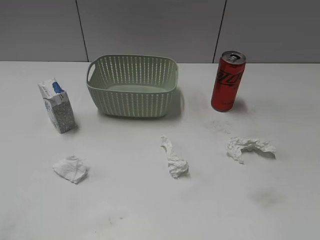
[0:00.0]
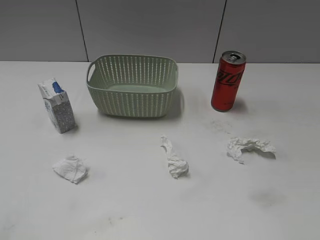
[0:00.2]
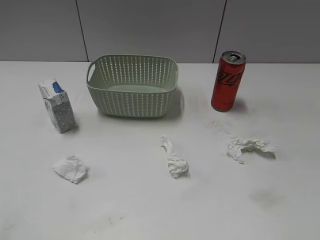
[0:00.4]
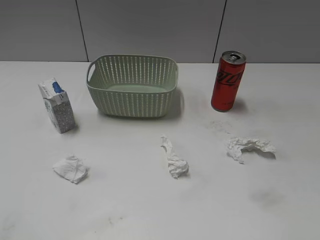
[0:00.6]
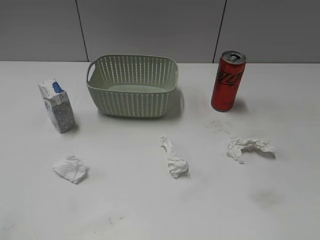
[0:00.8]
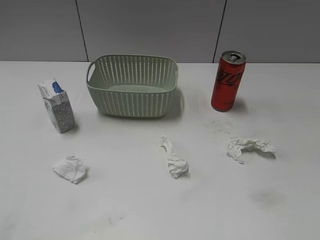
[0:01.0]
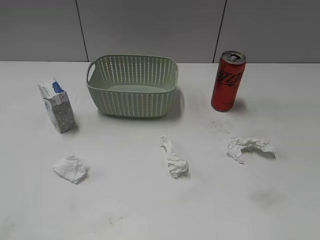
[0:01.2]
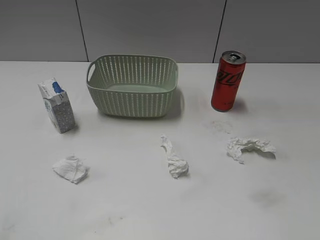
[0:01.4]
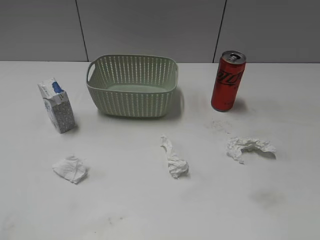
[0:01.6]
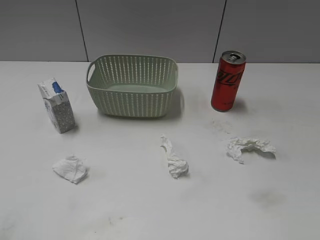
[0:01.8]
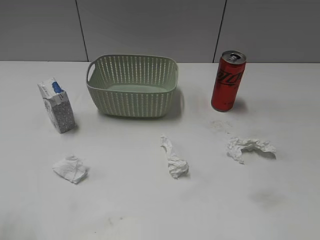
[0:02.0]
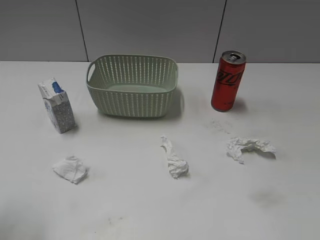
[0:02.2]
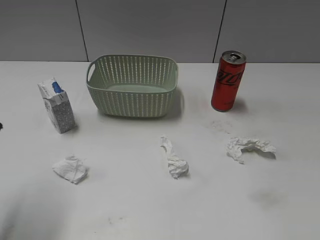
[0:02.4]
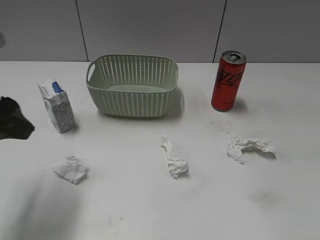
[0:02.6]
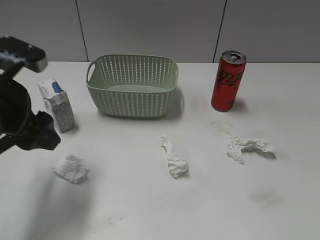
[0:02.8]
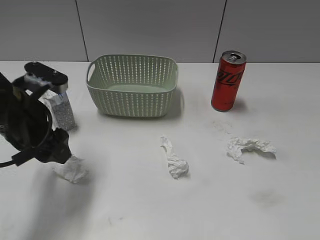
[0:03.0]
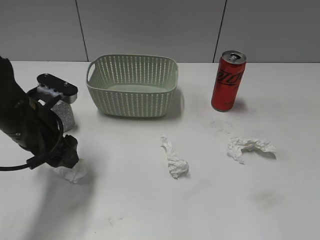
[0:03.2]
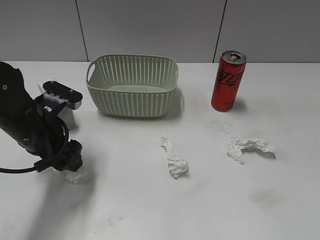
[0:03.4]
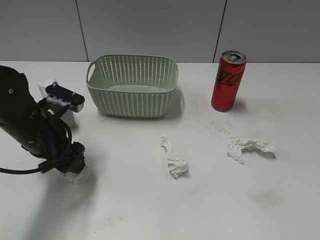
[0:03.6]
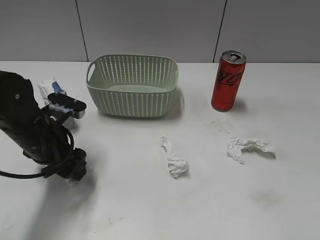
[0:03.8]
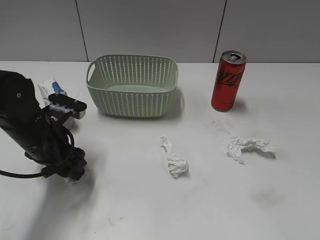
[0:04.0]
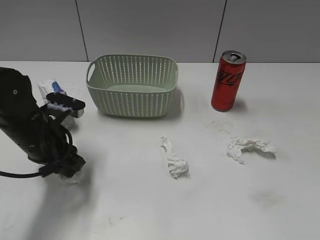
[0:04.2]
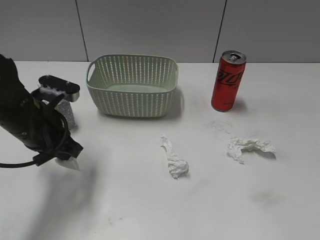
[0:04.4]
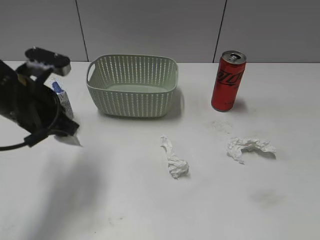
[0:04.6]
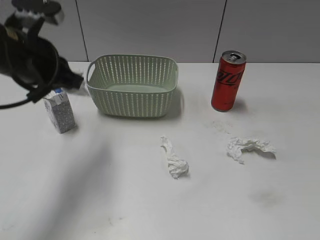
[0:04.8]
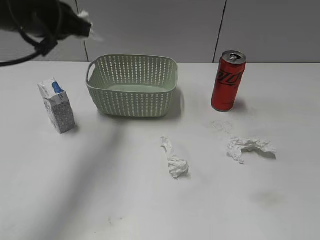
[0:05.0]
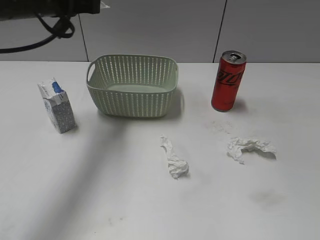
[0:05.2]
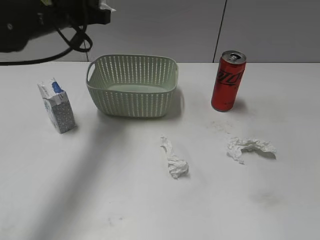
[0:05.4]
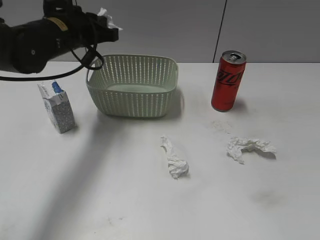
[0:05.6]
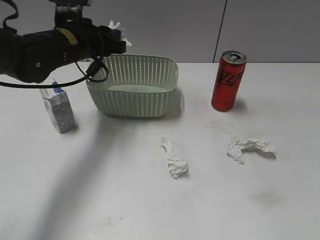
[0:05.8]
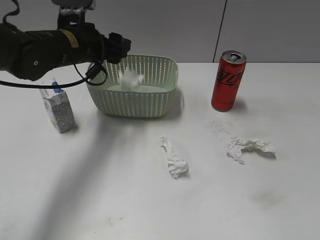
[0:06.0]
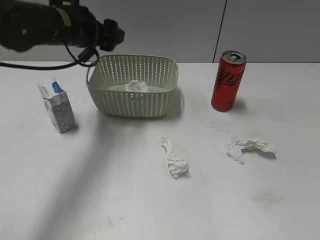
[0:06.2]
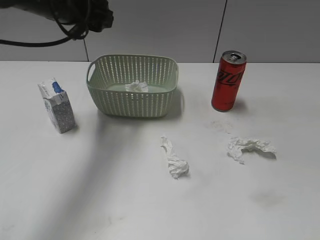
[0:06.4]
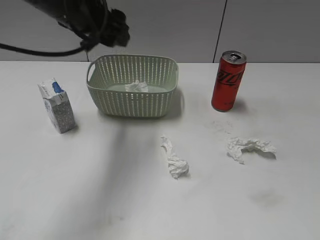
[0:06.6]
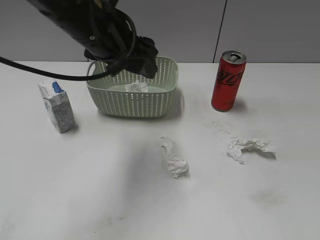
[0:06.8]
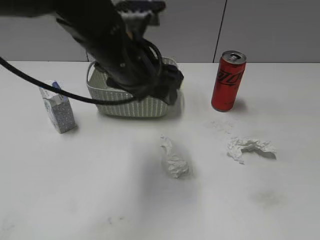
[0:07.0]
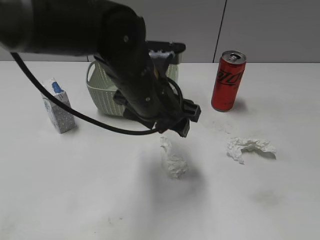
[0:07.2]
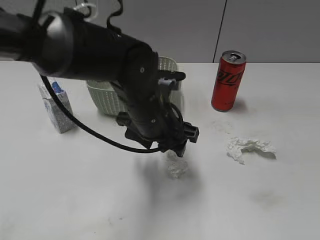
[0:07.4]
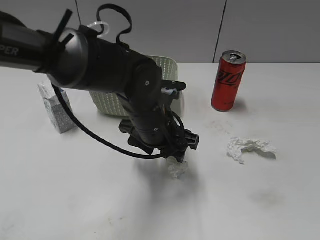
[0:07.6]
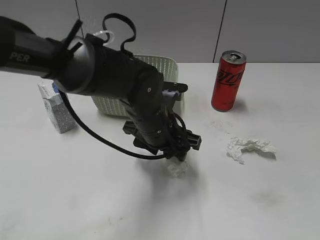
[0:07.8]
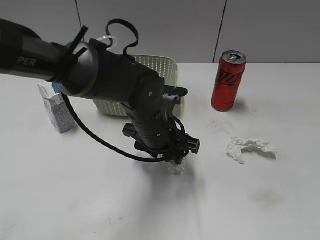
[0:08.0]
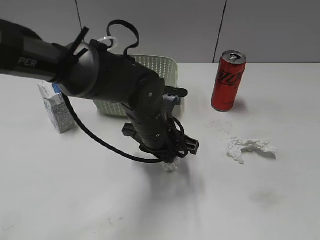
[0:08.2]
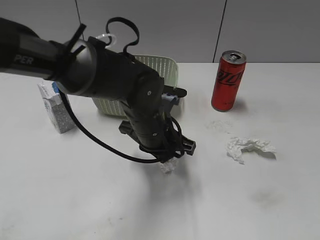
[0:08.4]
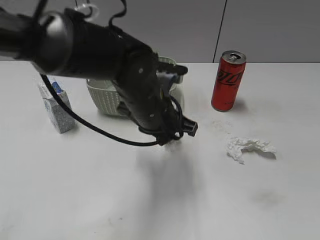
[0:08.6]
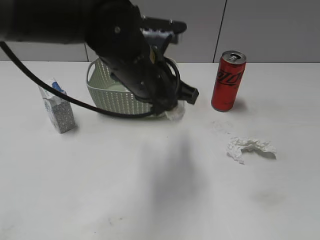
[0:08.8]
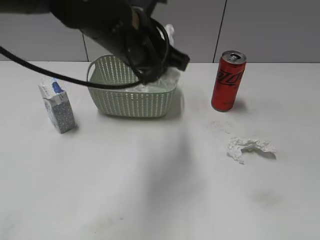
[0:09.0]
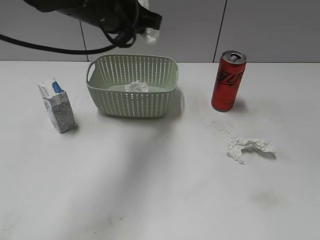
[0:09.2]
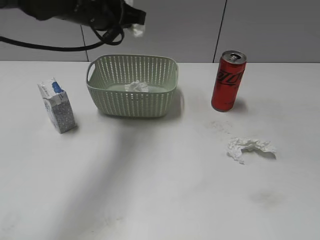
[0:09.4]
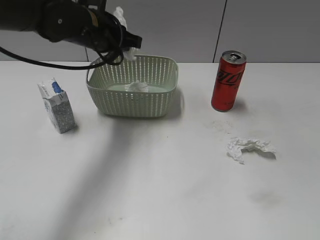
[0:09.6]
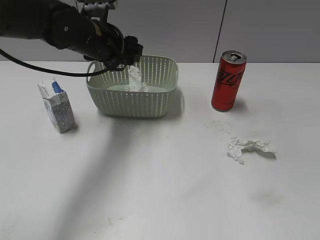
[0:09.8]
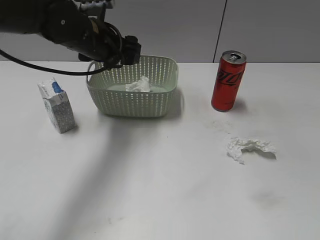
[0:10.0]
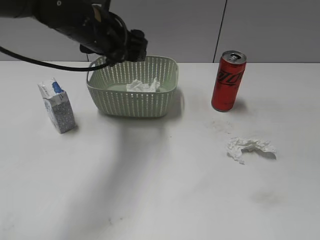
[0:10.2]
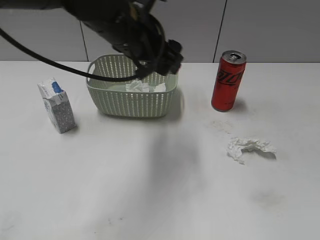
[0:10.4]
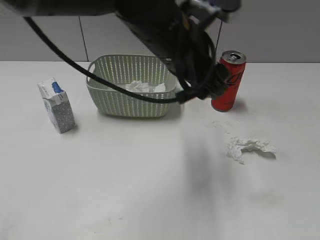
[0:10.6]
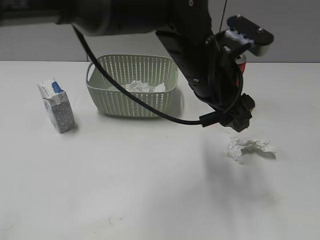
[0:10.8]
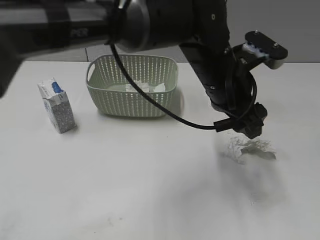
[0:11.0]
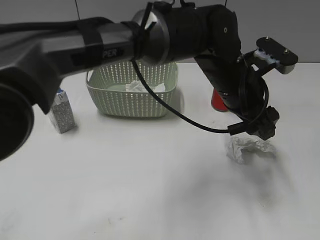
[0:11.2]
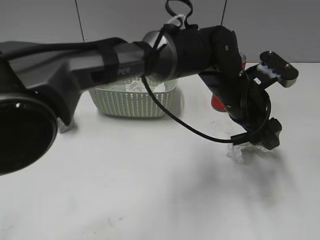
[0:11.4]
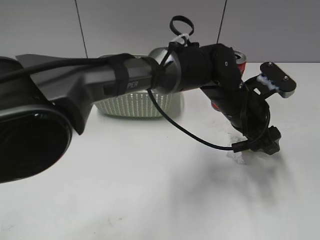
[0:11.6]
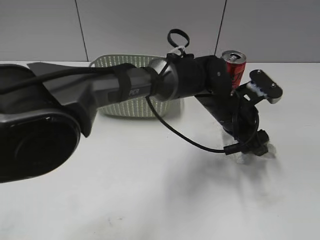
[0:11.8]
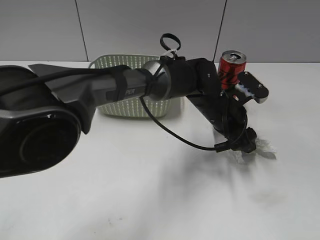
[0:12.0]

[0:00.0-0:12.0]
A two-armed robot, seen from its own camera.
Step, 0:02.4 to 0:04.4: Grasp the waste paper with left gripper.
Step, 0:04.6 to 0:06.2: Place the waste paper in the basket with left gripper.
Step, 0:06.4 to 0:08.4: Grasp the waste paper with left gripper.
Step, 0:08.6 to 0:10.0: Place the waste paper in the basket with left gripper.
0:01.6 to 0:03.0: The left gripper moves forward, to the right and downward, approximately 25 cm.
0:03.0 to 0:04.4: The left gripper closes its fingers.
0:04.4 to 0:06.0: The left gripper travels forward and upward by approximately 15 cm, and opens its fingers.
0:06.0 to 0:07.6: The left gripper moves to the right, backward and downward, approximately 20 cm.
0:07.6 to 0:09.0: The left gripper travels upward by roughly 15 cm, and closes.
0:09.0 to 0:10.4: The left gripper goes forward and returns, some 10 cm each way, and opens its fingers.
0:10.4 to 0:12.0: The left gripper travels to the right and downward by roughly 25 cm.

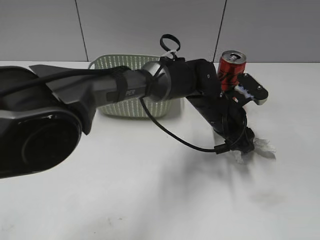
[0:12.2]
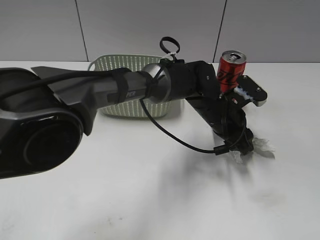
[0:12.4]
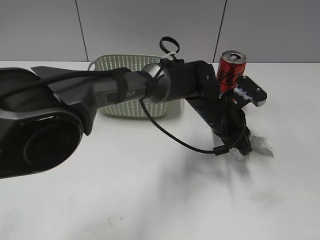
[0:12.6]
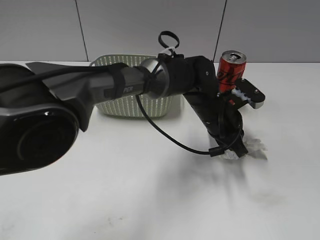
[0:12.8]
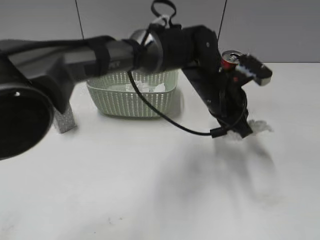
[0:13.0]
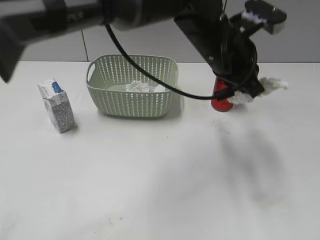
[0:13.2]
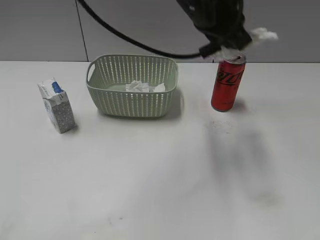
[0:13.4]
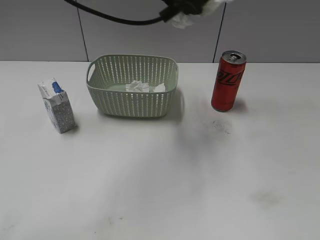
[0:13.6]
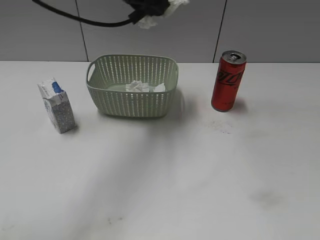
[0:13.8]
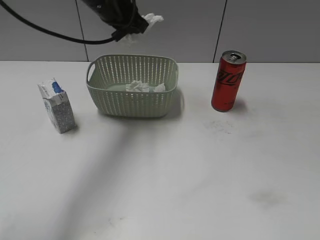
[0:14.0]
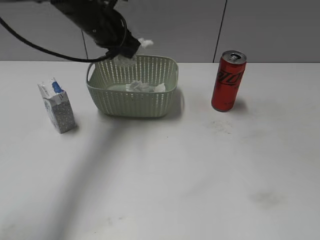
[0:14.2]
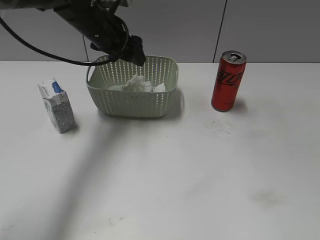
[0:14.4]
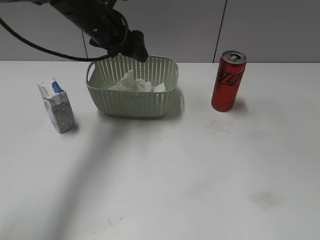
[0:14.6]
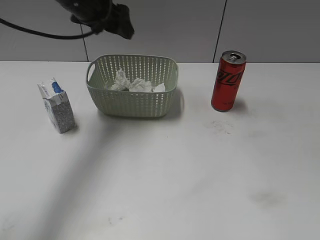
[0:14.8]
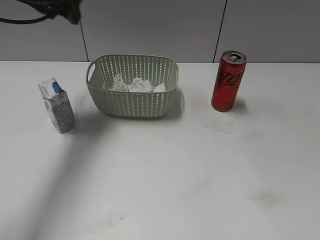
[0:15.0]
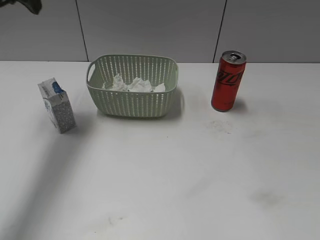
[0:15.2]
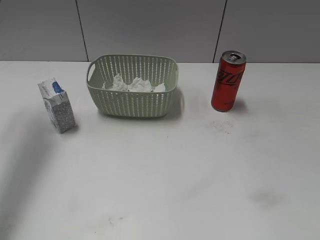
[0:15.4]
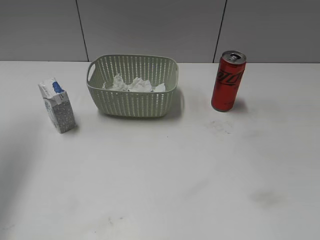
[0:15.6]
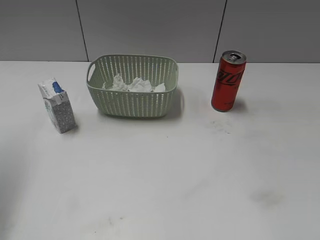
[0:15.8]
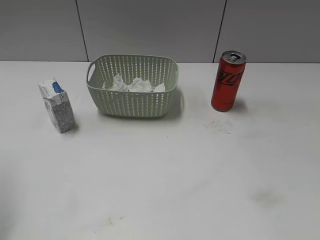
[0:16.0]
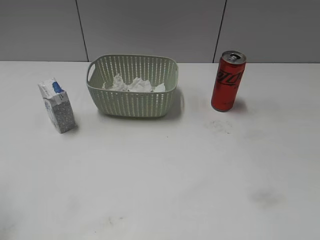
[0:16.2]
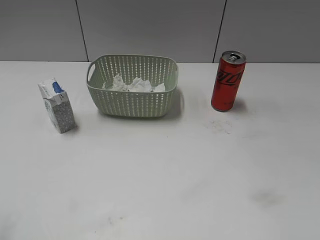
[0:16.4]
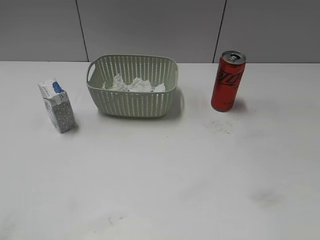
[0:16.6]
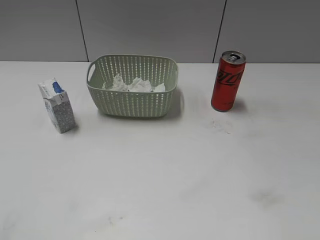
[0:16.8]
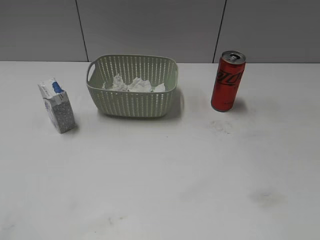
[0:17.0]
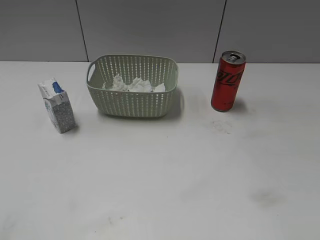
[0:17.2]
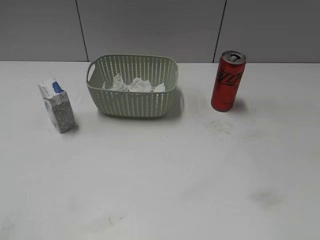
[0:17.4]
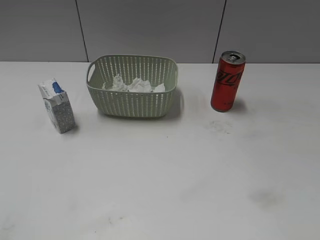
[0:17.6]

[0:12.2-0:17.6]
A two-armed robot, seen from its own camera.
Step, 0:13.0 to 0:14.4: Place the waste paper in the basket with left gripper.
0:12.2 to 0:13.6: The left gripper travels upward and to the left by some 25 cm, and closes its fingers.
0:13.6 to 0:15.0: The left gripper travels to the left by some 20 cm, and opens up.
0:15.0 to 0:16.2: The left gripper is displaced backward and to the left by roughly 30 cm.

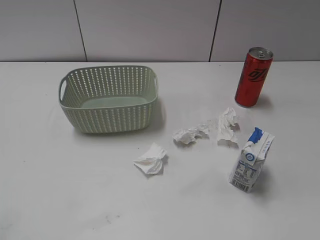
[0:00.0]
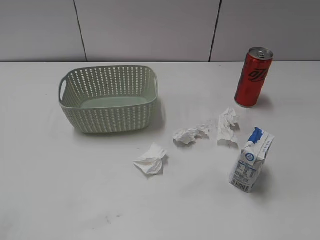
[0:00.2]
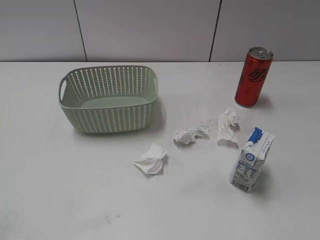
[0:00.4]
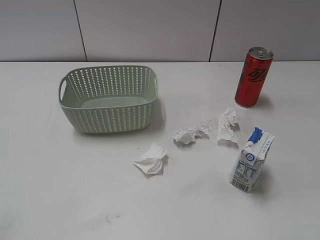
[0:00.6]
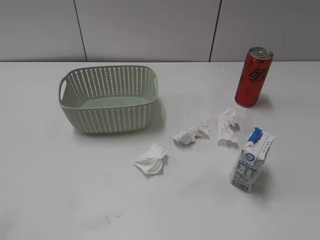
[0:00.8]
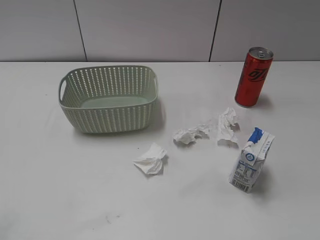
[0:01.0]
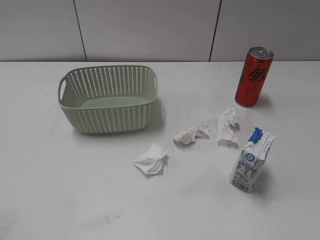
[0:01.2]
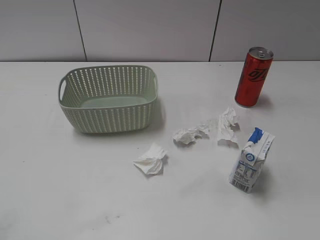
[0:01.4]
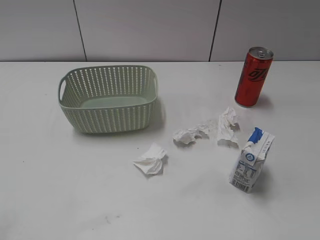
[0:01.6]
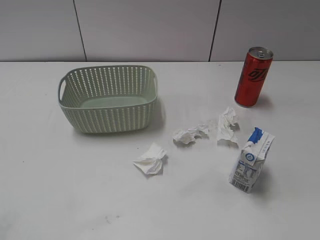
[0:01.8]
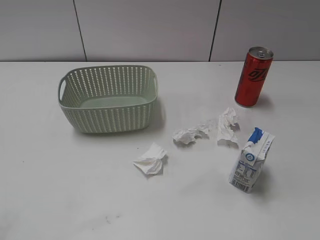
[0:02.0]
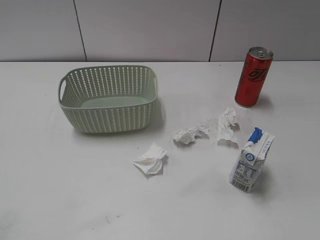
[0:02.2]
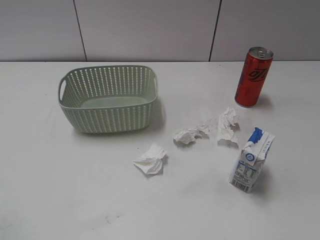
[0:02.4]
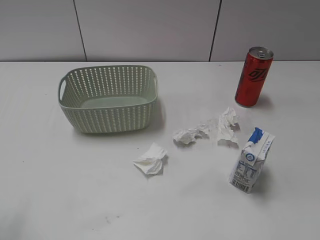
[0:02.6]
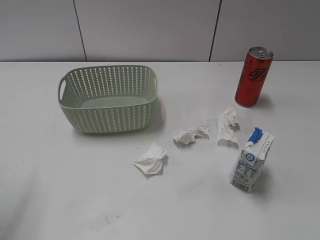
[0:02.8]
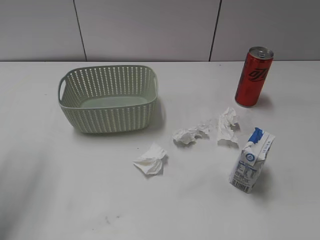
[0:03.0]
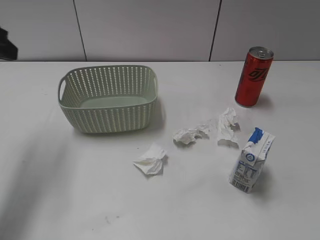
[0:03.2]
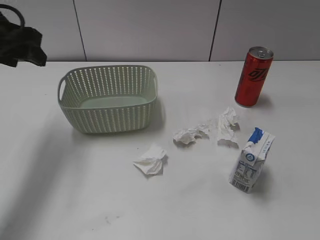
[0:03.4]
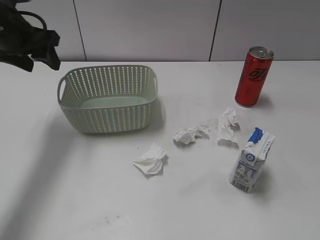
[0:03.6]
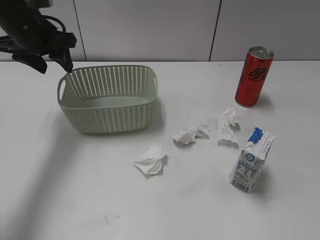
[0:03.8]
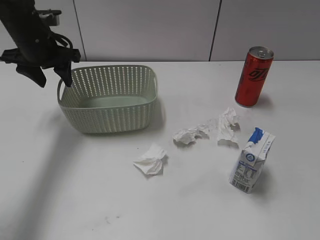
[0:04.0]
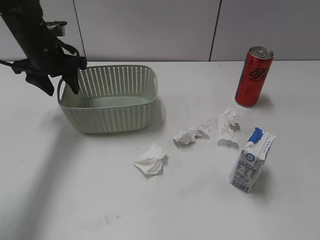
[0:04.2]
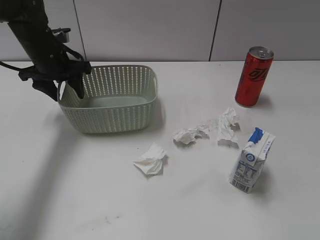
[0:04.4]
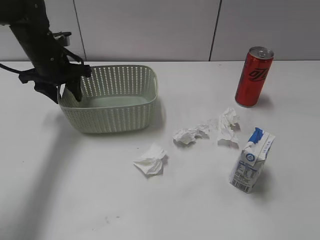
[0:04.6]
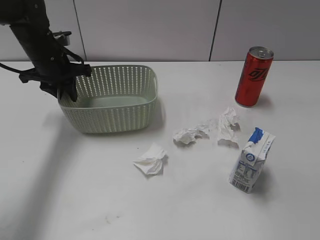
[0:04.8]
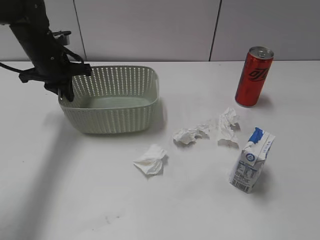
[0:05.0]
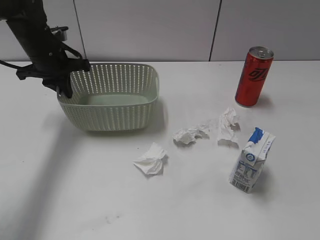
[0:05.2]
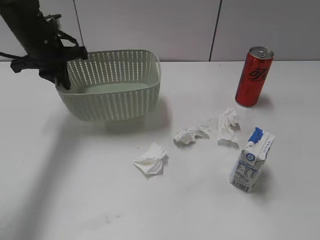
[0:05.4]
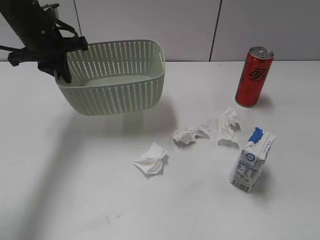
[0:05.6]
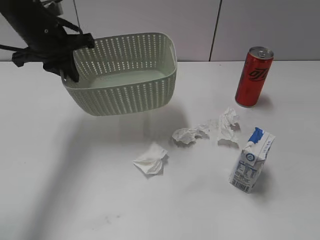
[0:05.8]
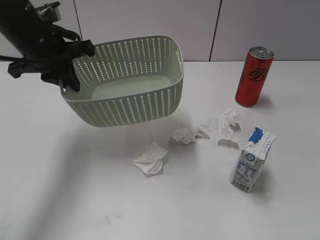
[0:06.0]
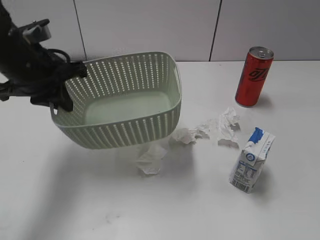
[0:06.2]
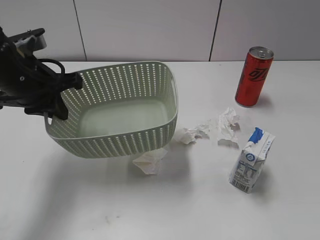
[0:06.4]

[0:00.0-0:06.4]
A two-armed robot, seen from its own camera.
Step, 0:03.2 to 0:05.0: Grasp the basket with left gripper.
0:01.6 to 0:03.2: The left gripper shifts about 30 cm forward.
0:03.2 to 0:04.8: The left gripper heads forward, downward and to the right, covering approximately 20 cm, and closes.
0:04.8 to 0:06.4: The left gripper moves backward, roughly 15 cm.
